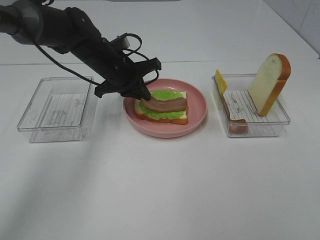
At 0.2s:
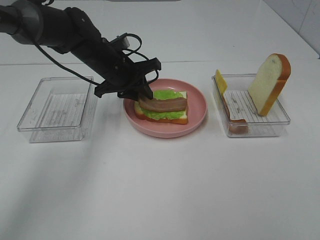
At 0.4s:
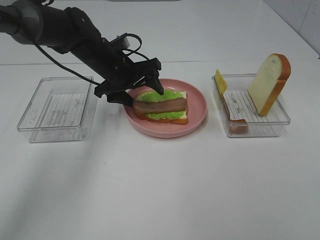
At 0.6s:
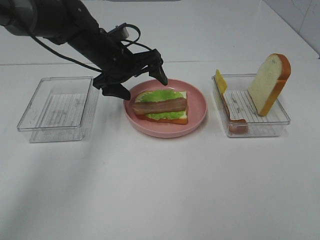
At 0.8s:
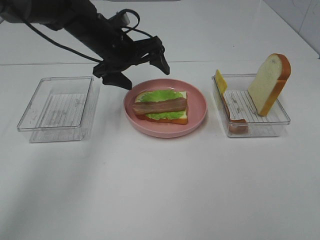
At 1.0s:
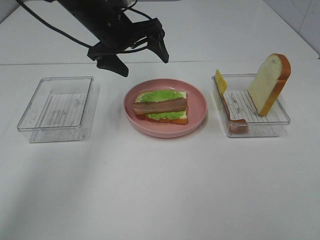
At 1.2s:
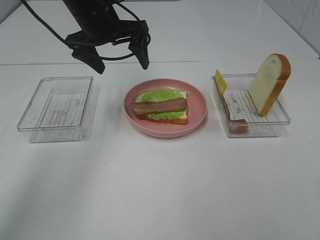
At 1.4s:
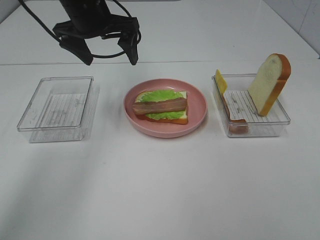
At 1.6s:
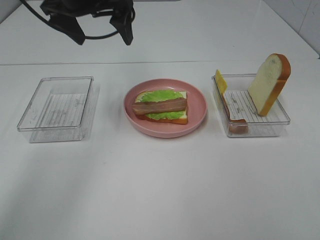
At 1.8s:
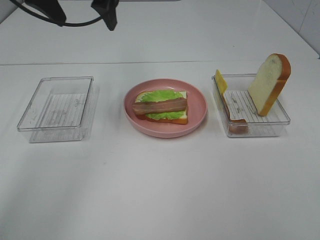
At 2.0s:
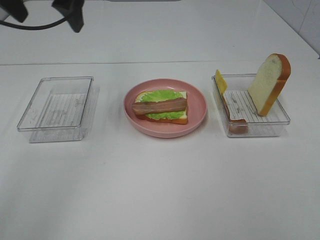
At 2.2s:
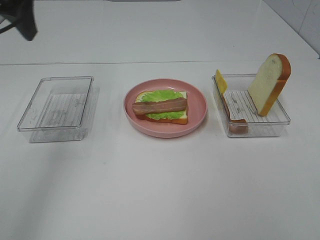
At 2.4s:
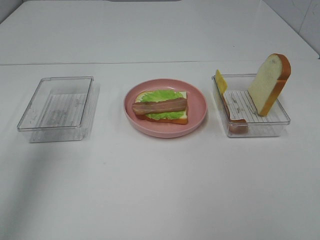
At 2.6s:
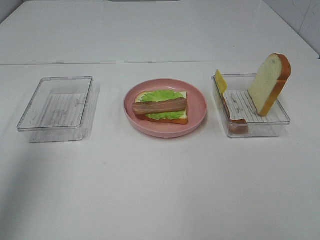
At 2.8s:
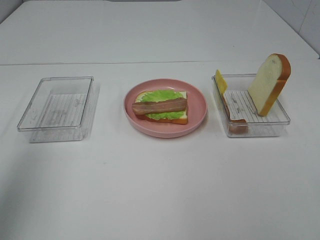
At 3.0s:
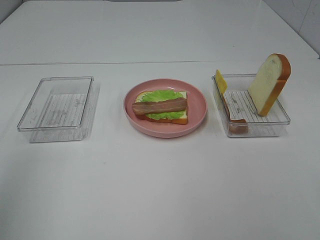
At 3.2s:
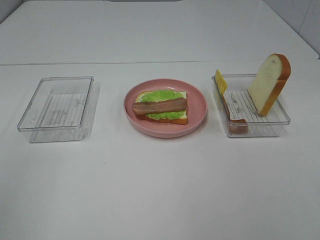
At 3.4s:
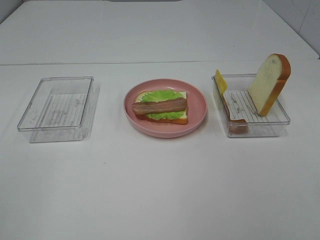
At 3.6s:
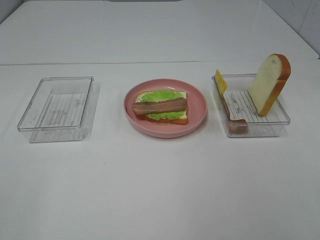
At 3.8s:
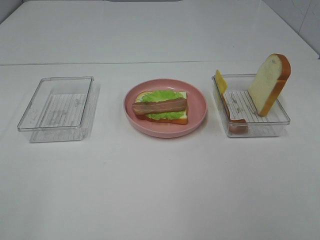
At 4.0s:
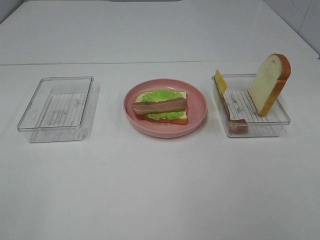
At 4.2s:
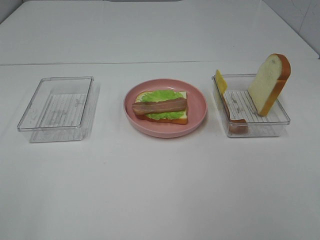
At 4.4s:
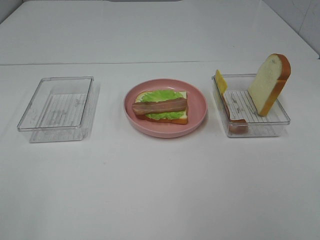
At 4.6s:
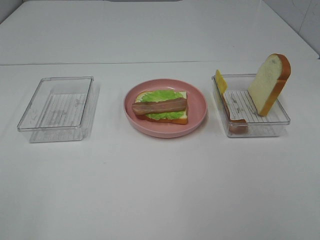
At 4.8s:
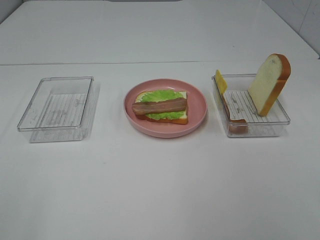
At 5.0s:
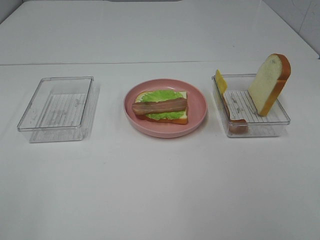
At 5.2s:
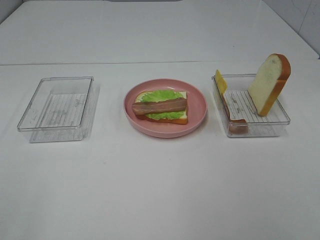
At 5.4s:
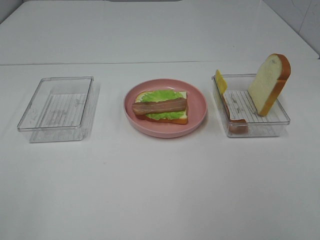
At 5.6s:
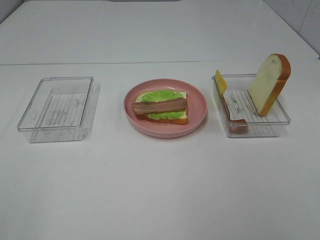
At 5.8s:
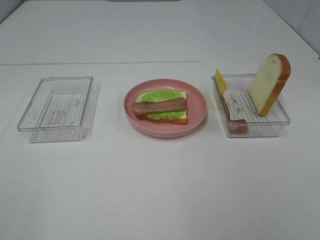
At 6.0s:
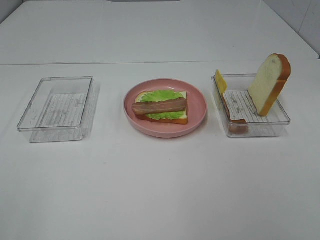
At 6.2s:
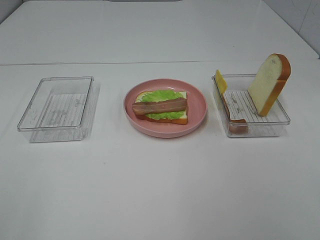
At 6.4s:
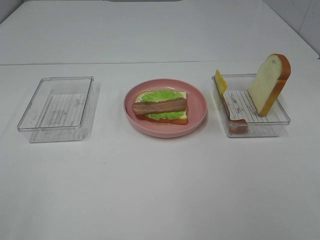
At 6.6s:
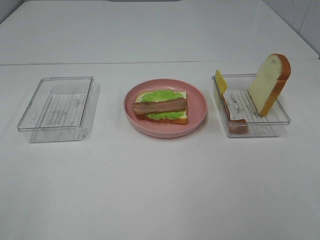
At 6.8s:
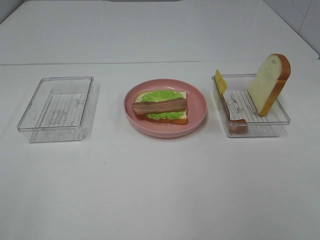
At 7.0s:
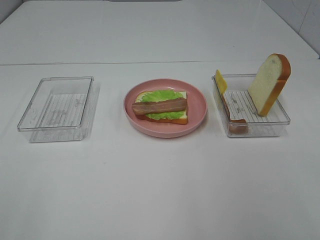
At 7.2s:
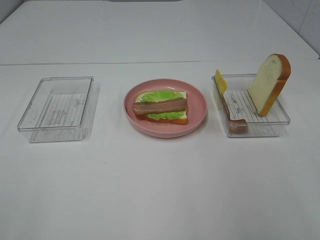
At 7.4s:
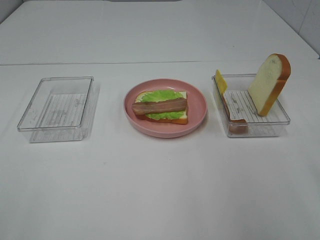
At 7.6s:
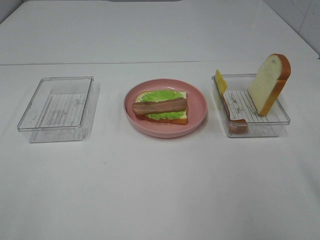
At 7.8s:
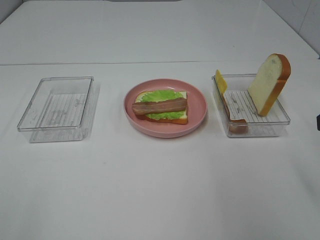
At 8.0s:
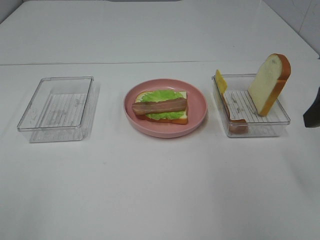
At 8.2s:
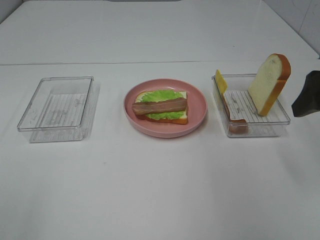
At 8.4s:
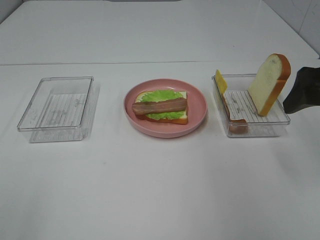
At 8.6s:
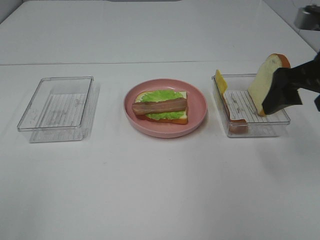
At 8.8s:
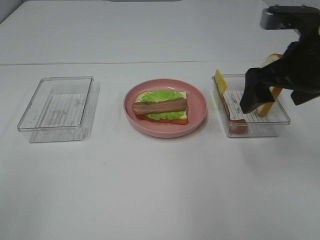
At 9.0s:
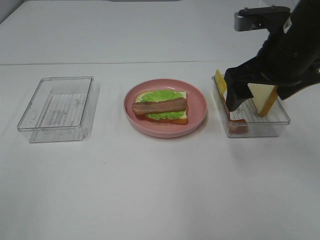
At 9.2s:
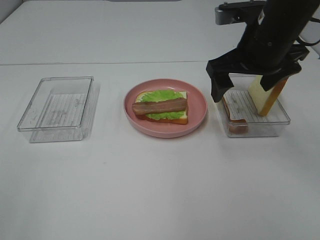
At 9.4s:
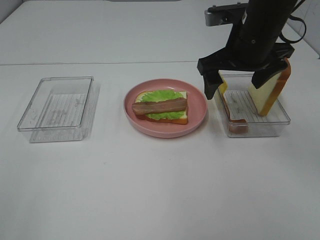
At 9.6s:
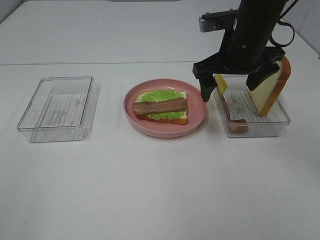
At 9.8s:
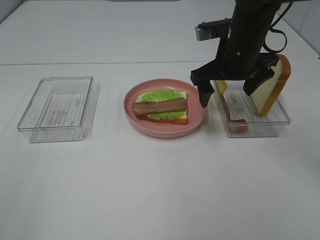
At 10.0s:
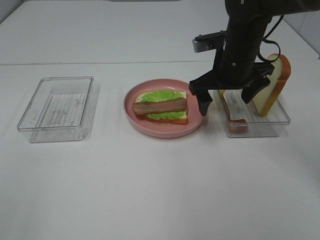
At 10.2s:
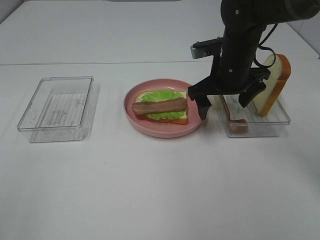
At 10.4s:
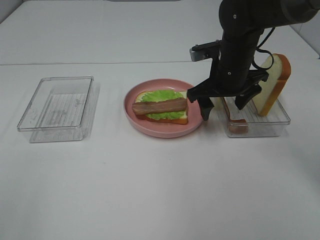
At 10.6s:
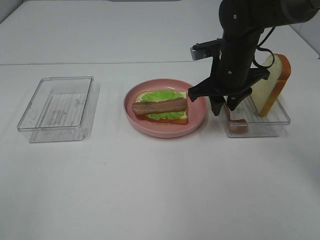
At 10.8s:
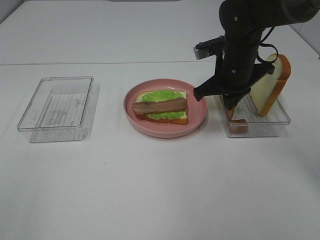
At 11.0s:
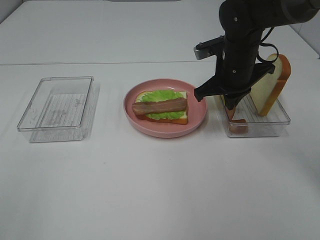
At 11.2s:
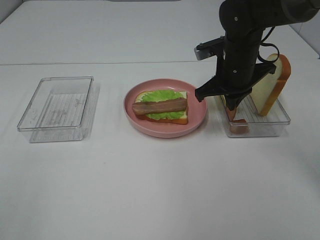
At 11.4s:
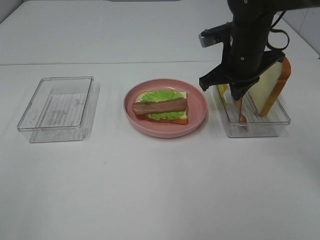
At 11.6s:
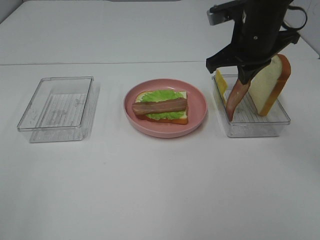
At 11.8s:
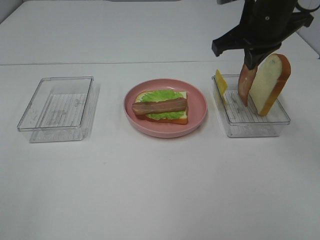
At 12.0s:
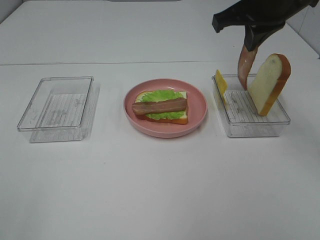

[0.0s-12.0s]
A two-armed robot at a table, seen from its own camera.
Task of the whole recording: Make sandwiches.
Step, 0.8s to 10.8s: Right hand:grab the bacon.
0.0s to 1.6s: The left gripper goes roughly 20 cm upward, and opens.
1.6s to 3.0s: The left gripper goes roughly 35 cm backward and to the left.
7.6s to 9.0s: The right gripper is displaced forward and to the left by some 20 cm.
9.0s to 10.4s: The right gripper shifts roughly 10 cm downward and forward.
10.4s to 12.0s: The right gripper travels upward by roughly 15 cm, and closes up.

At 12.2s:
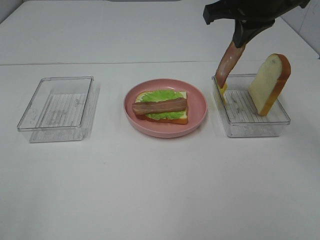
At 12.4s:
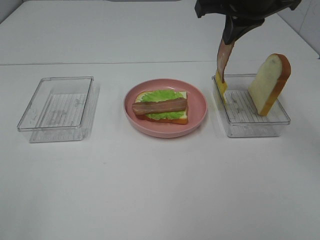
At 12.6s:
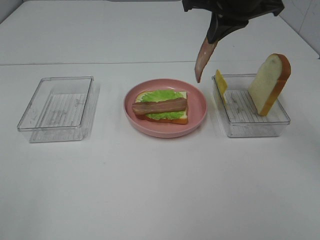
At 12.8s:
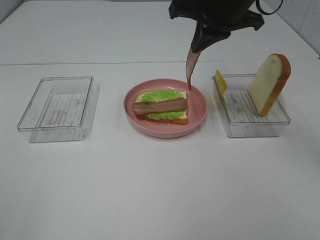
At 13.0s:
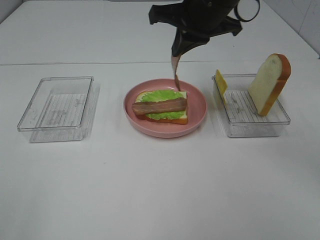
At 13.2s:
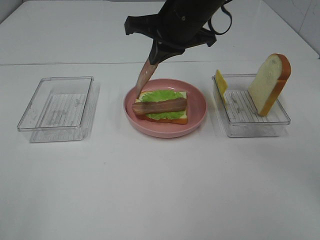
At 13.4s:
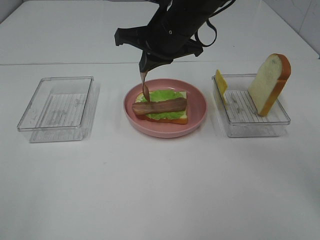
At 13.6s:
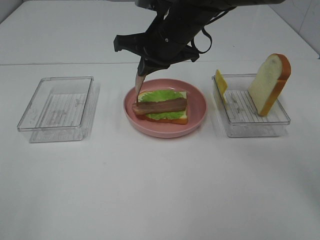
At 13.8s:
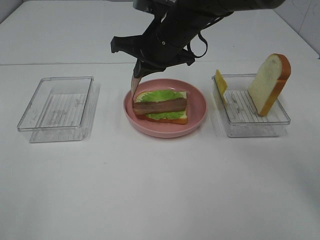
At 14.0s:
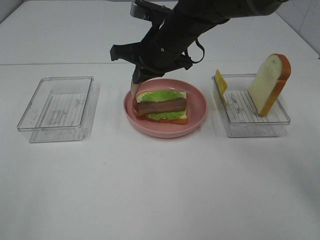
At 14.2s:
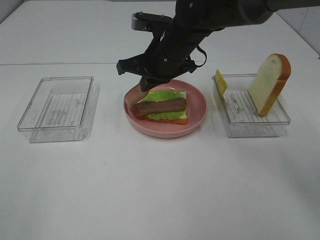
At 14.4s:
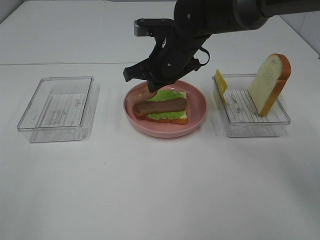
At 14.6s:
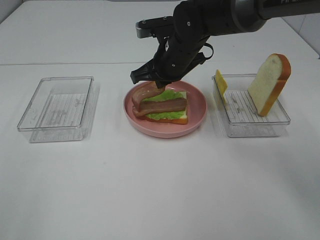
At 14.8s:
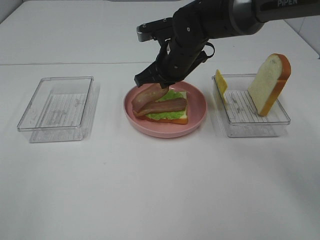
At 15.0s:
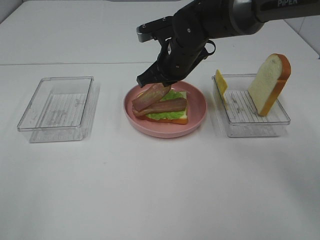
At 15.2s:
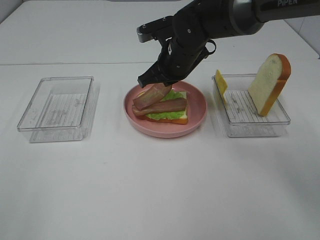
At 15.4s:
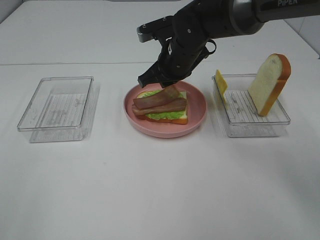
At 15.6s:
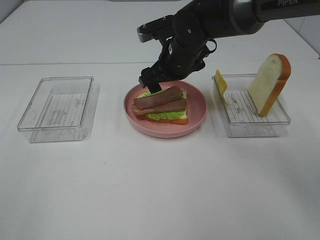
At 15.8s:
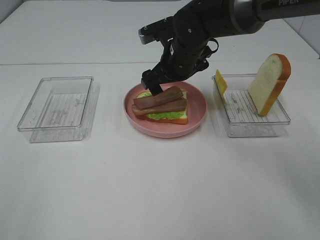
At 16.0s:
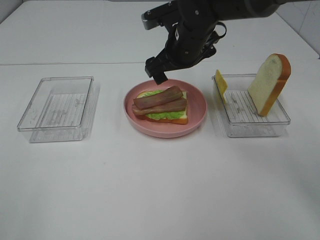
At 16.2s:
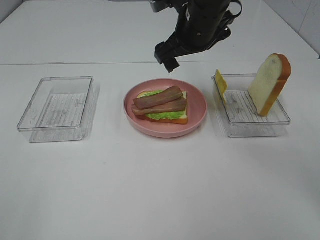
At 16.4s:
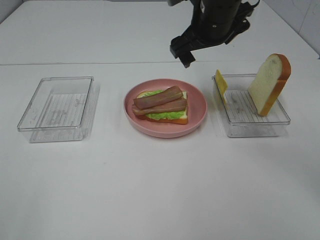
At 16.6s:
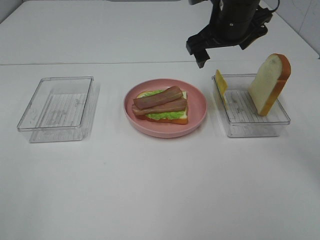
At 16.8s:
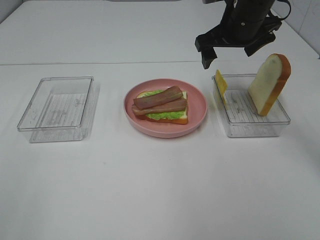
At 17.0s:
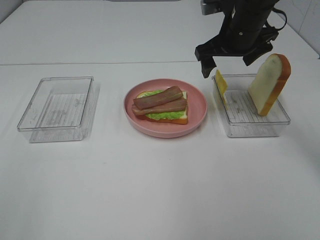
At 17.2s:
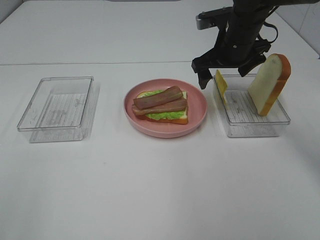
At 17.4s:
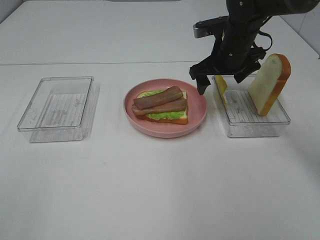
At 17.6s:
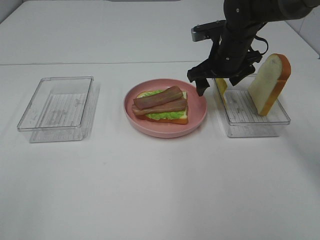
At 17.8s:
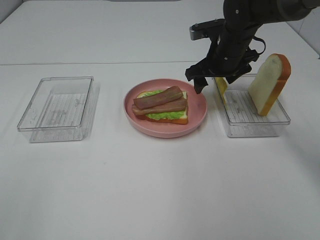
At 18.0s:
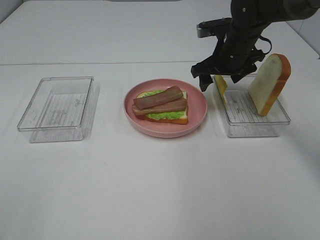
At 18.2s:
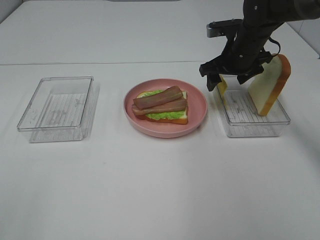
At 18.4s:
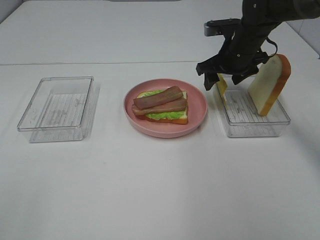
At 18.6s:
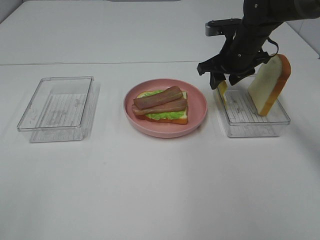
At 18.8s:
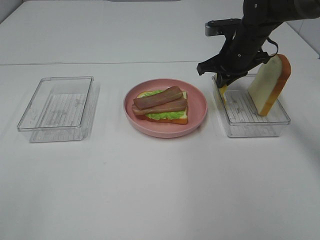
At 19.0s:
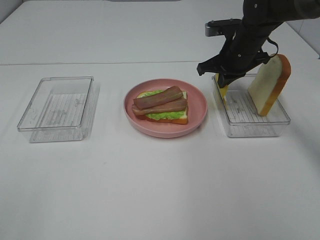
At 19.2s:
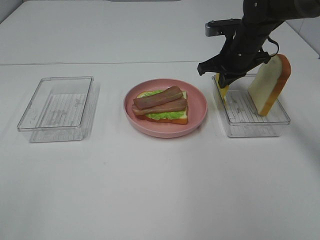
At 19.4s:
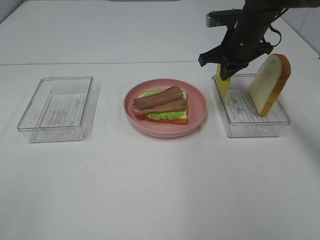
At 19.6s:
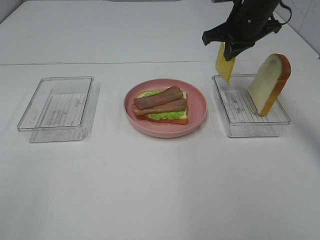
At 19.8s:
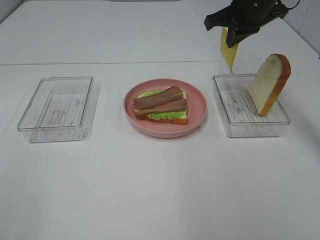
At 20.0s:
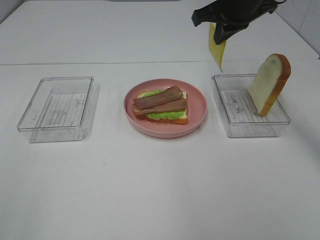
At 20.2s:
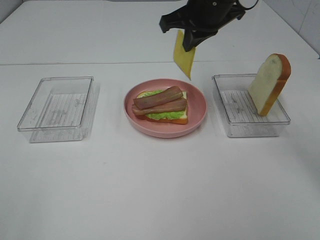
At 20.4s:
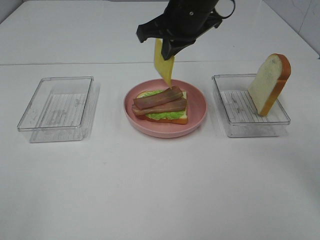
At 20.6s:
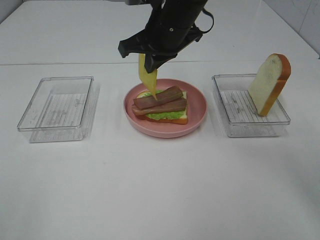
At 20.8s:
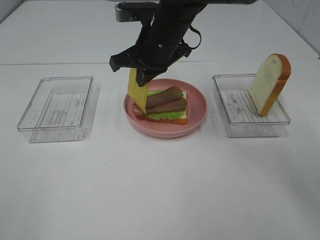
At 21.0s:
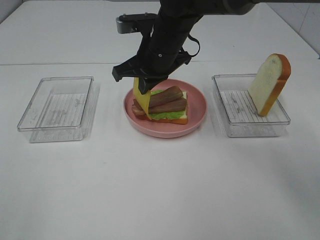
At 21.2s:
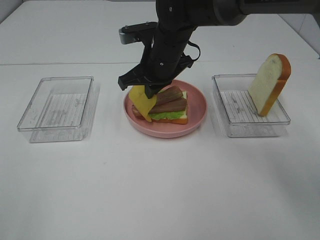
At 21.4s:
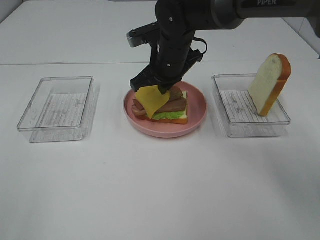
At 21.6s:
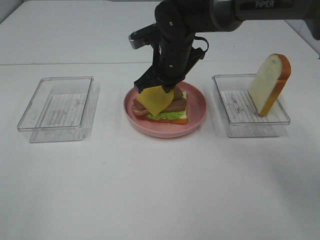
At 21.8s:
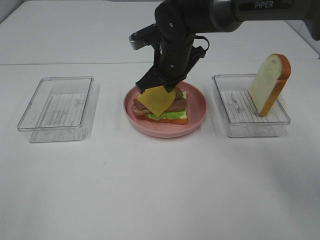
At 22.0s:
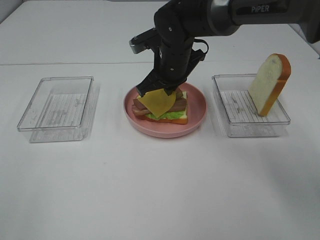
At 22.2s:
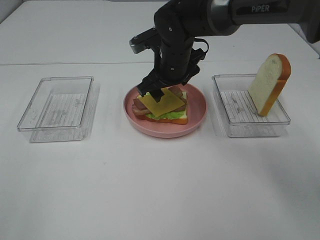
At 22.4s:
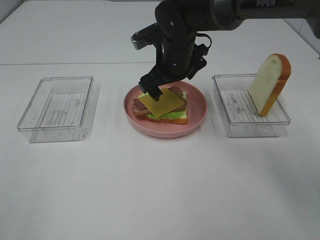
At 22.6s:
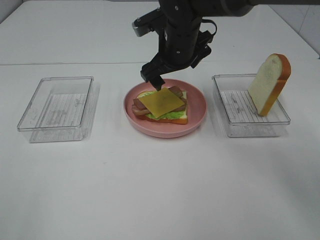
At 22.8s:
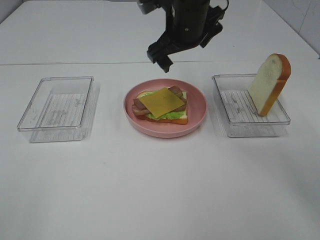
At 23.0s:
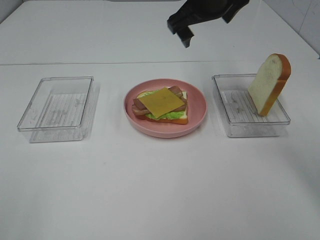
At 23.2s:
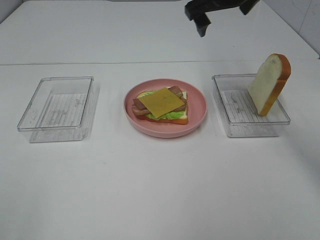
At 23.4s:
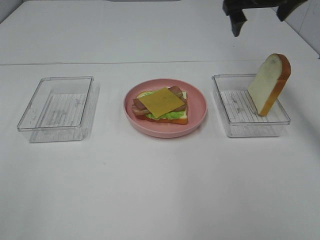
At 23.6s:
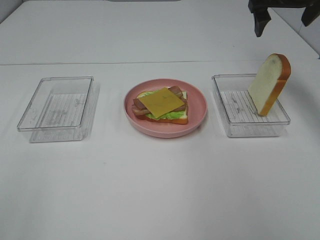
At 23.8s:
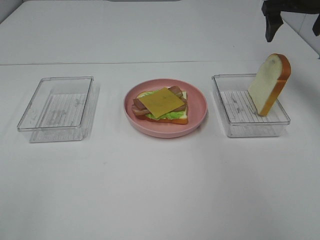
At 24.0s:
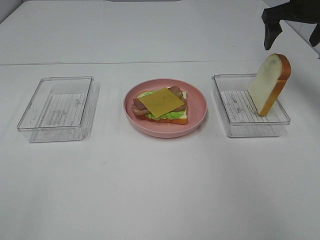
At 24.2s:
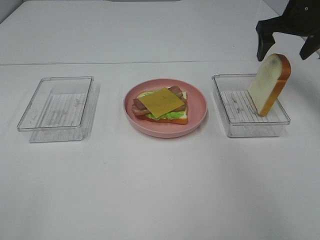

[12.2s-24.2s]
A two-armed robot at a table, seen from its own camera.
Task of the whole recording: Make sandwiches.
Step, 12.2s to 16.0s: Right hand:place bacon on bacon.
Step, 16.2s to 19.2s: Right hand:grab the cheese slice.
Step, 19.4s to 22.6s: Right hand:place the cheese slice on top of the bacon.
12.2s to 13.8s: The right gripper travels to the left and downward by about 15 cm.
13.8s to 15.2s: The right gripper heads downward, covering some 5 cm.
15.2s to 16.6s: The right gripper is displaced to the right and upward by some 10 cm, and opens.
16.6s to 18.2s: The right gripper travels downward by roughly 10 cm.
18.2s to 19.8s: The right gripper is displaced upward by some 10 cm, and closes.
19.8s to 21.2s: The right gripper heads to the left and downward, covering roughly 20 cm.
21.2s to 22.6s: The right gripper opens its fingers.
22.6s to 24.2s: The right gripper shifts some 25 cm to the right.
